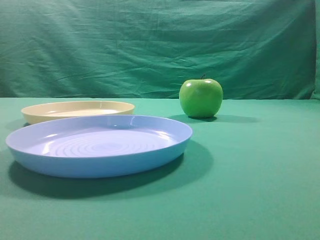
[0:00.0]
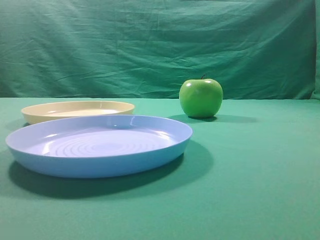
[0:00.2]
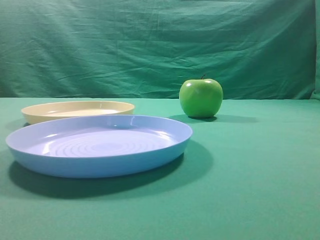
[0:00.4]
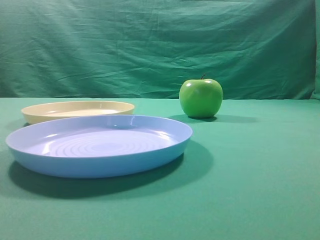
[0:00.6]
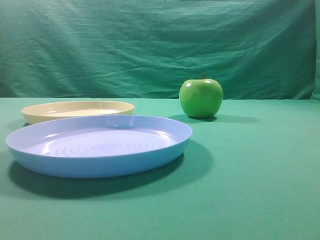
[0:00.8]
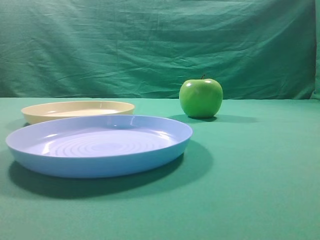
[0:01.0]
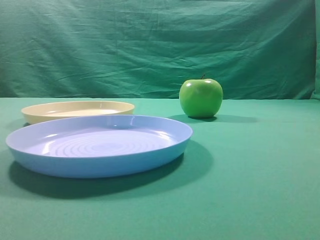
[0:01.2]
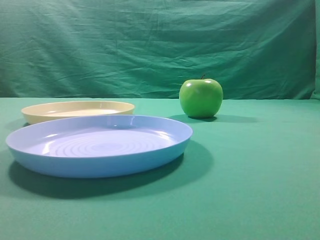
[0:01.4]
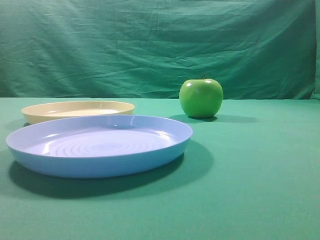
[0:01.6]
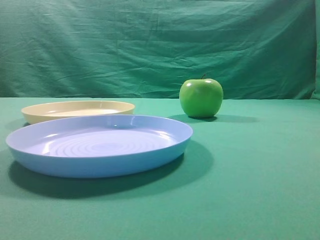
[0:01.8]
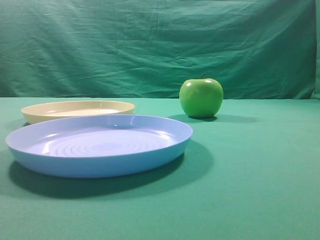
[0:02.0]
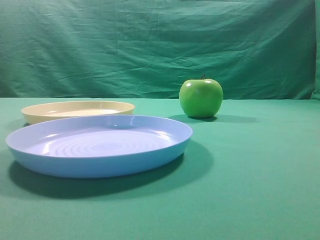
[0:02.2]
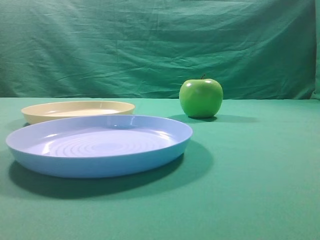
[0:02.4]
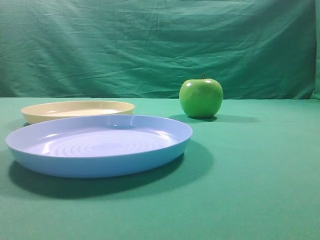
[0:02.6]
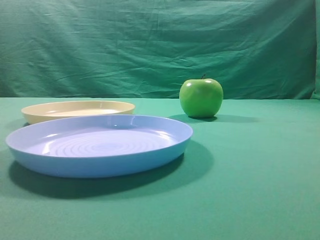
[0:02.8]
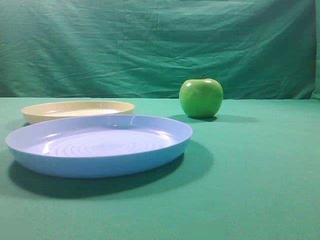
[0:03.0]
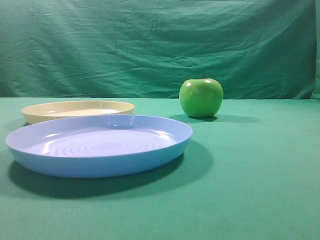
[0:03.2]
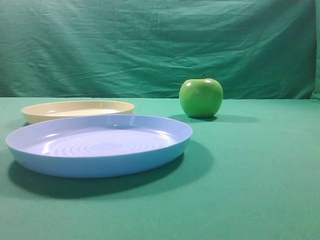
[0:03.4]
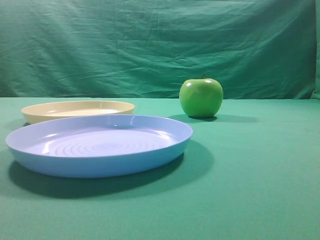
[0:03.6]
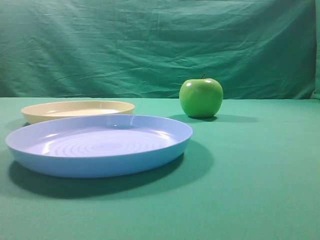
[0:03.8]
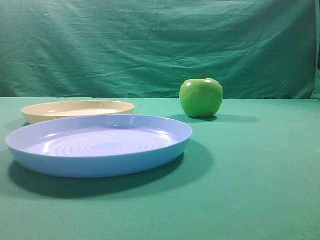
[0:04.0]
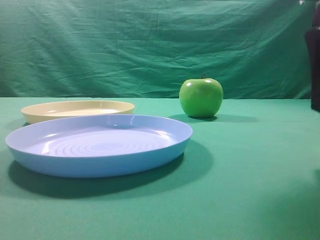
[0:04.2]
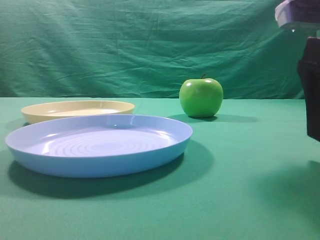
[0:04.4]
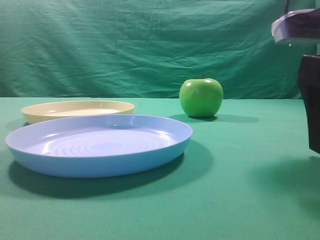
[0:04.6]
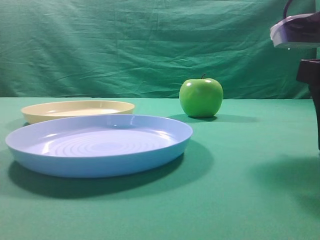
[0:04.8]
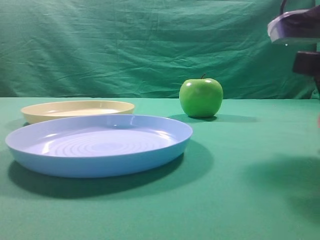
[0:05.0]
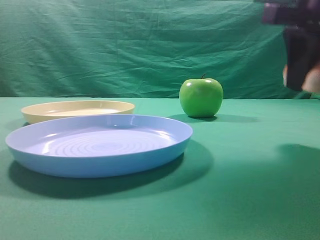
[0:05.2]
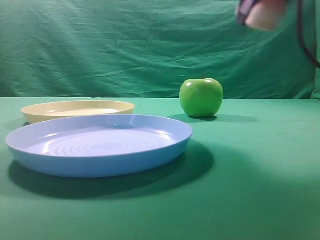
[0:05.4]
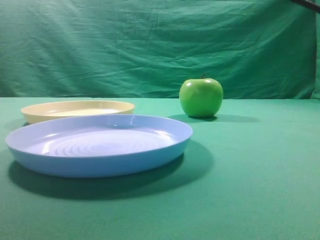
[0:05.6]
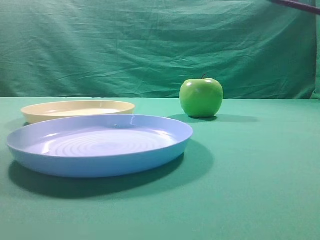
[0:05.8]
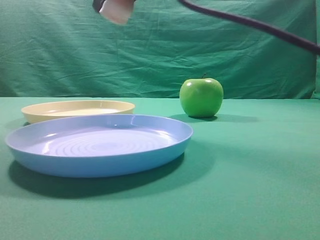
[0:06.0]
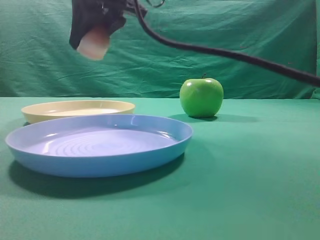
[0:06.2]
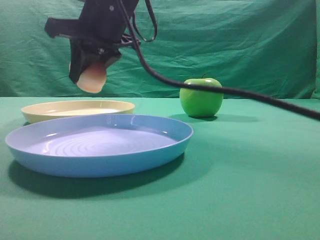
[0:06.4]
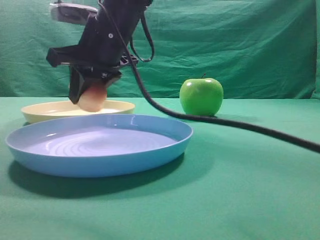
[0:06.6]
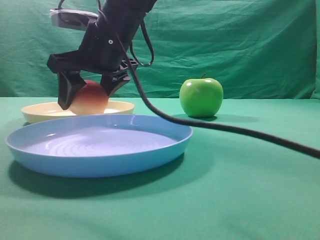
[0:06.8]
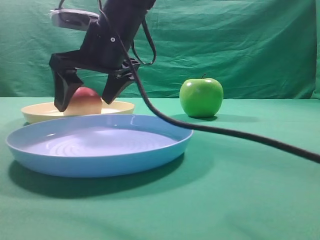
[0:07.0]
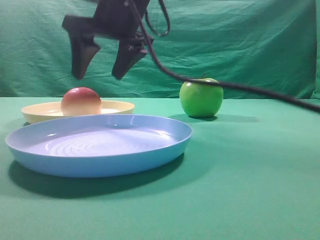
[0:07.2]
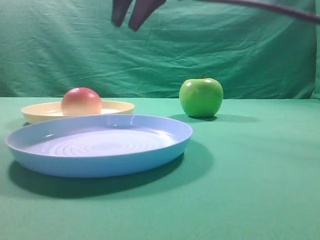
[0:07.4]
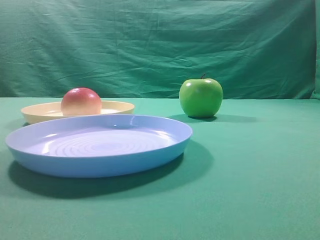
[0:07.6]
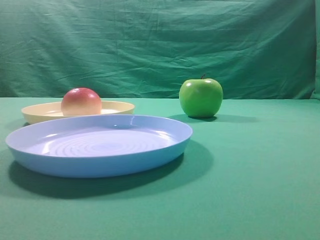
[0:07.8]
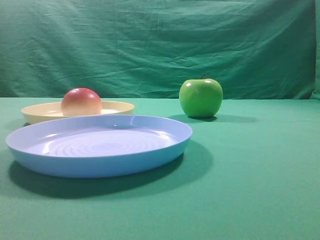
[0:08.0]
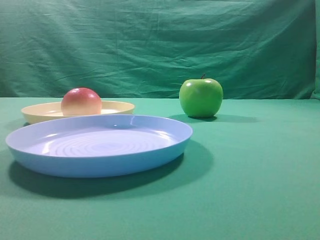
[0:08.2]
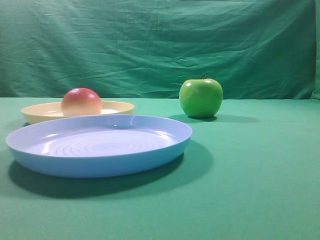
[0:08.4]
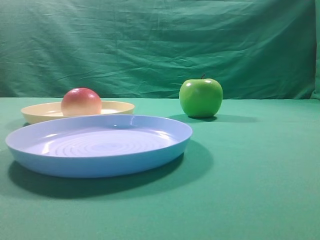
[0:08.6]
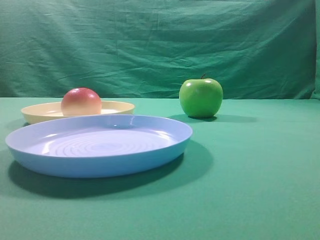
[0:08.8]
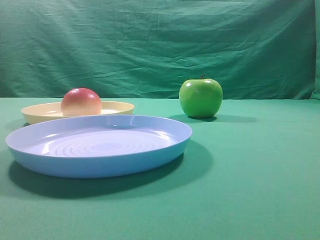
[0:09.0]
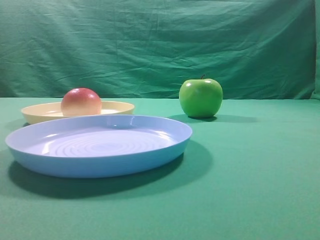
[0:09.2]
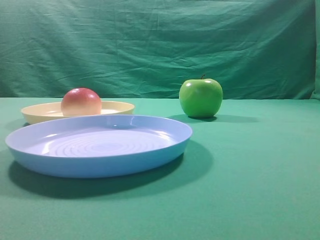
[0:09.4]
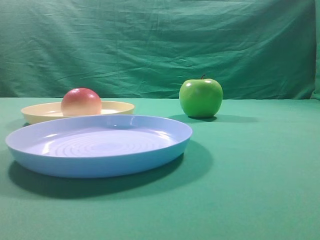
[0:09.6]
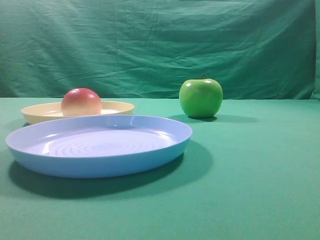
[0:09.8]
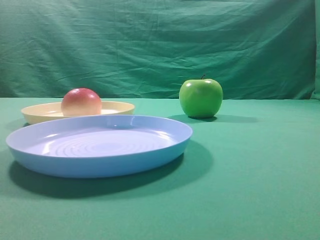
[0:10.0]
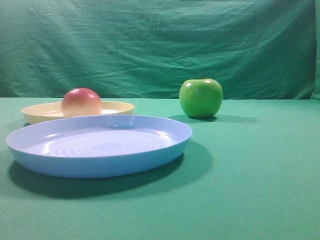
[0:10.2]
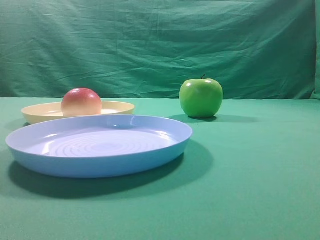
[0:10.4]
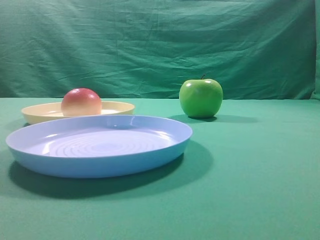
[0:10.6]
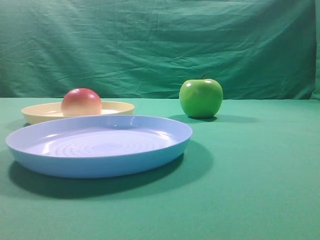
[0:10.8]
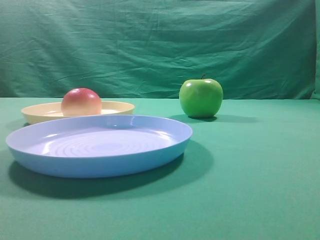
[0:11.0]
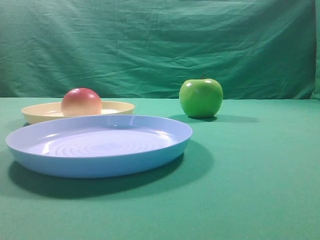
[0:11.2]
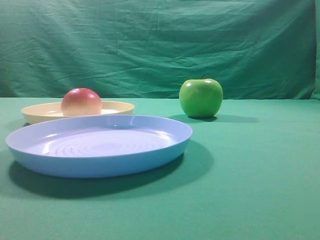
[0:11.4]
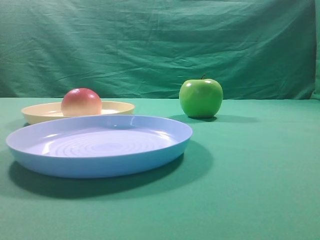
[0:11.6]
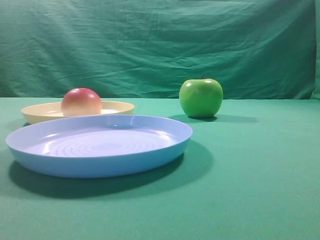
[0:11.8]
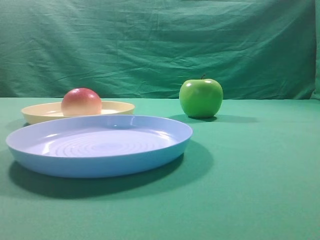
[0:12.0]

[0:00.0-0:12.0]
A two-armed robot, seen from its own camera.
Step, 0:05.2 to 0:07.2: Place the picked object on the yellow plate.

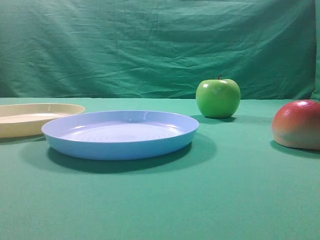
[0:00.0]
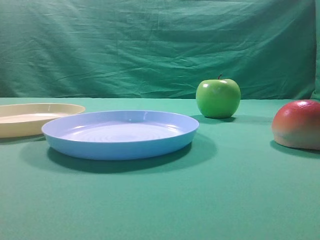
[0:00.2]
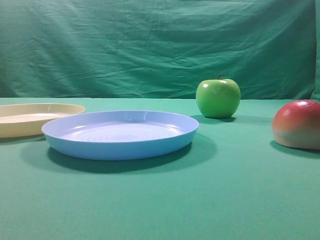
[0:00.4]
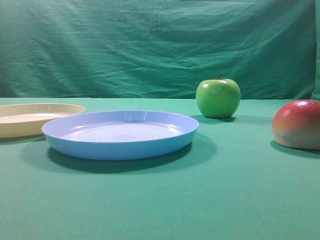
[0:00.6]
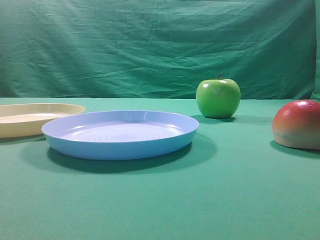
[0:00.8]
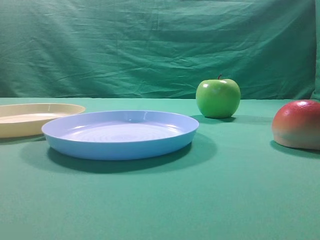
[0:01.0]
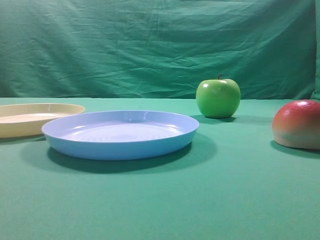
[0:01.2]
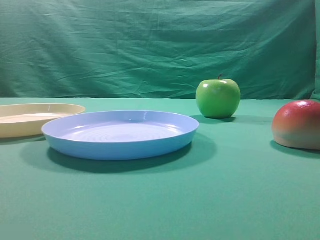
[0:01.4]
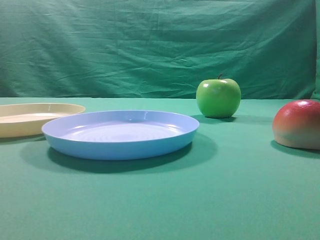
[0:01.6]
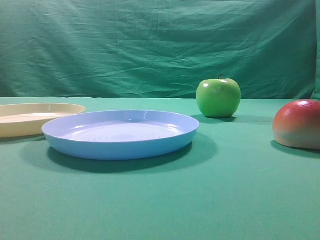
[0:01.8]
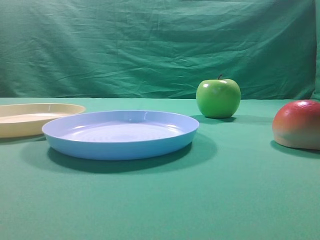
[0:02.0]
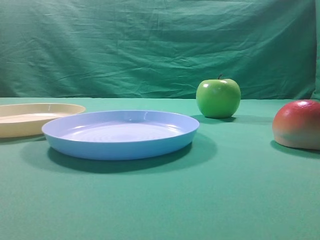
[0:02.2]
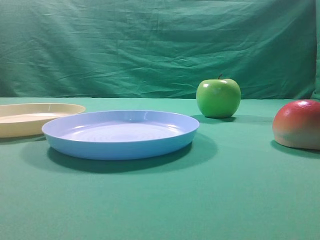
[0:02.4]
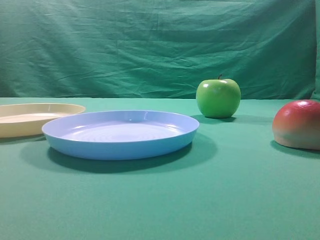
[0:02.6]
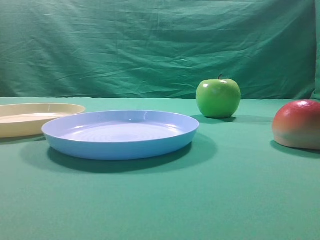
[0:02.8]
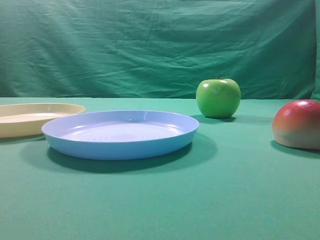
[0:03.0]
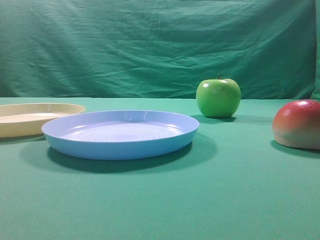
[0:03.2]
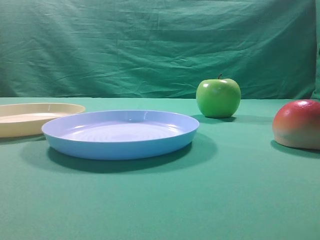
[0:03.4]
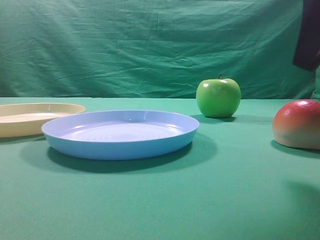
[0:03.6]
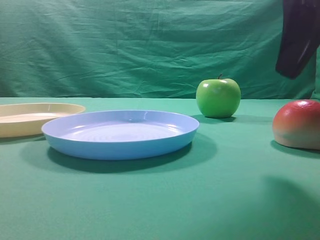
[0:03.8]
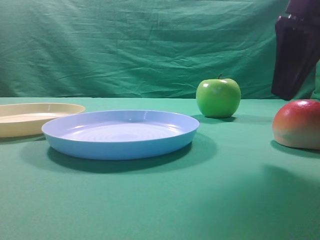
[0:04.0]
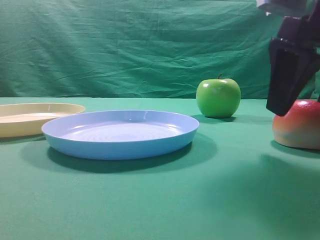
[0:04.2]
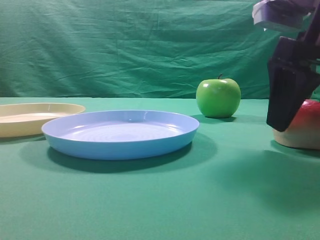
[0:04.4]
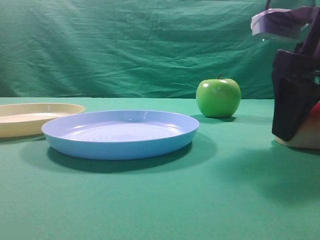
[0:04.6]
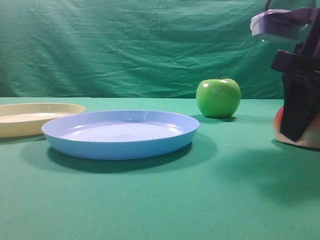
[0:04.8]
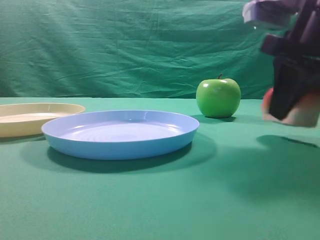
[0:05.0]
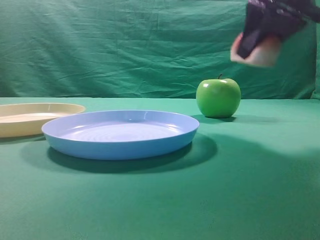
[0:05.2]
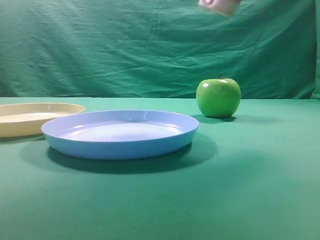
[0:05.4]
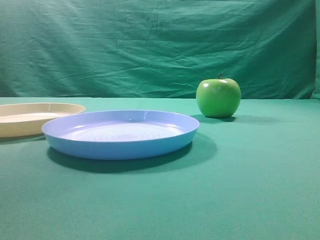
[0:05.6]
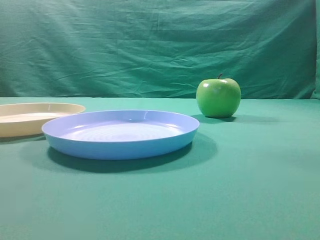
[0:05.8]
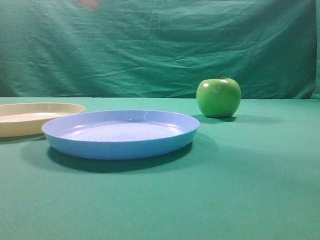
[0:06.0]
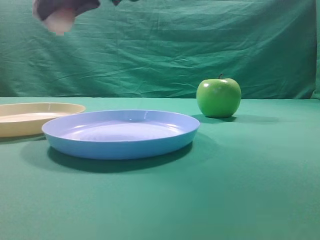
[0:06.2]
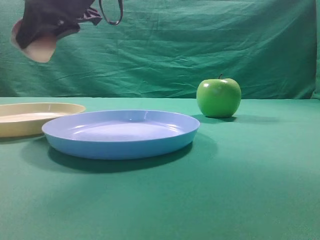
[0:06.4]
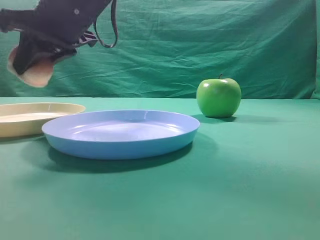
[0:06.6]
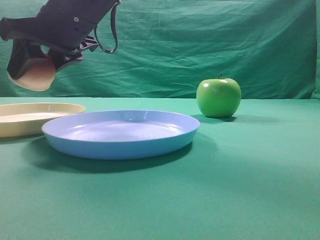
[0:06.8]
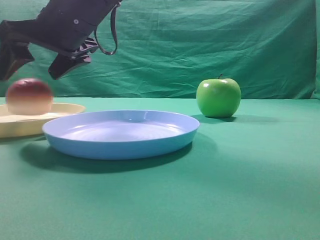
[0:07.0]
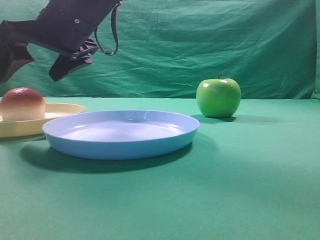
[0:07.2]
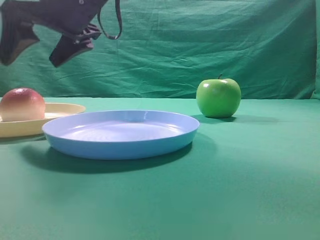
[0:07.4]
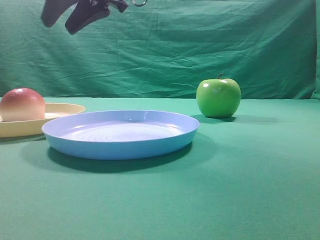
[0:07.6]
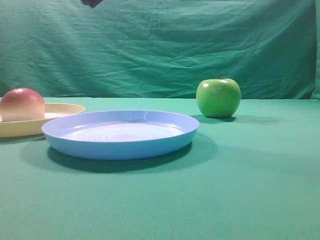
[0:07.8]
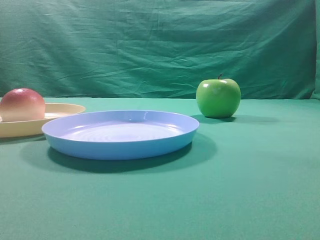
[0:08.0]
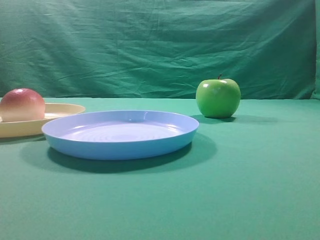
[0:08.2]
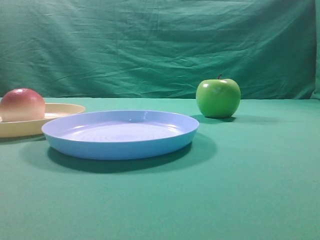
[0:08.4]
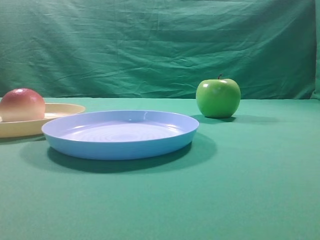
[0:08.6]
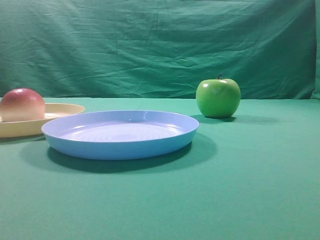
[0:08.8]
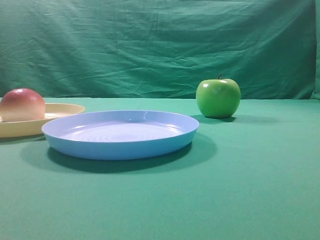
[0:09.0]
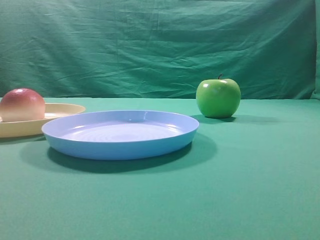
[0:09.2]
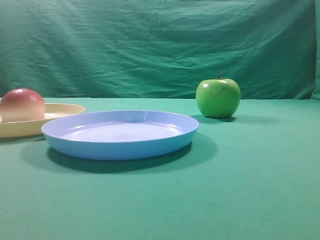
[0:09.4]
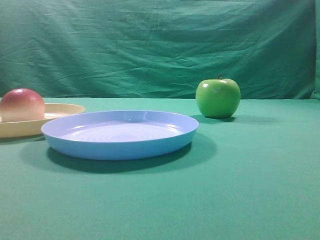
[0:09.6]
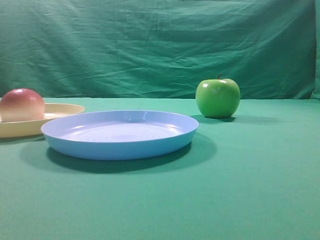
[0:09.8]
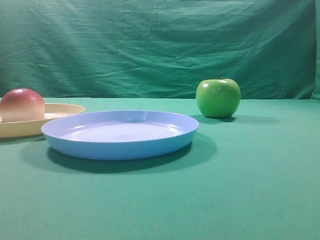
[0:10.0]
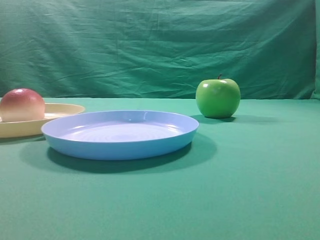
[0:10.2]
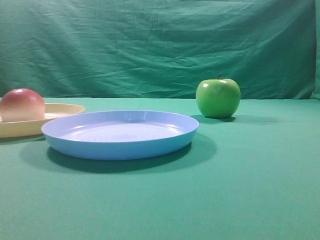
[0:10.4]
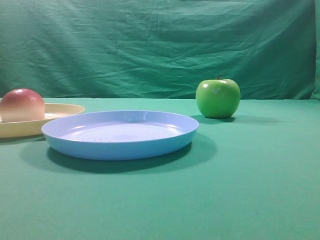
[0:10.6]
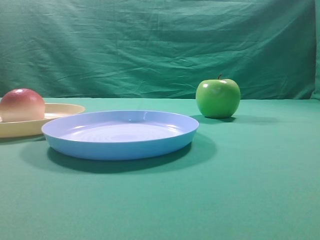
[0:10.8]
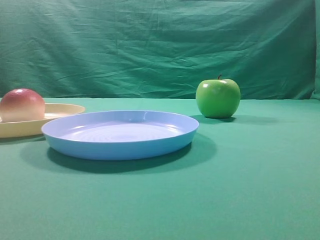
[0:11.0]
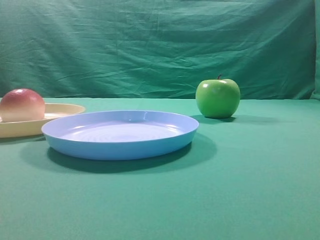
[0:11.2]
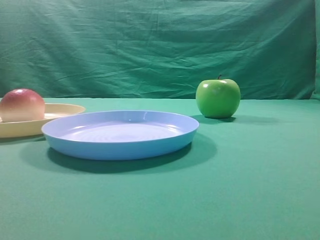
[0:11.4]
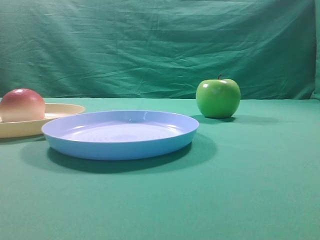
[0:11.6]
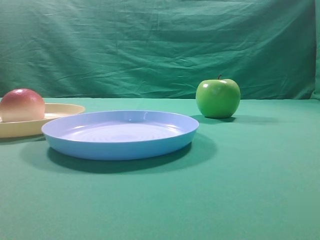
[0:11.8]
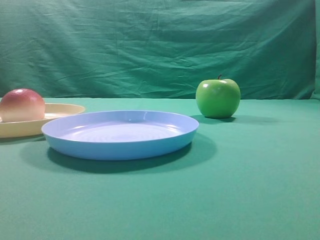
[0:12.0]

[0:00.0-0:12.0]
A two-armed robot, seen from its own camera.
Step, 0:05.2 to 0:07.2: Place the picked object on the yellow plate.
